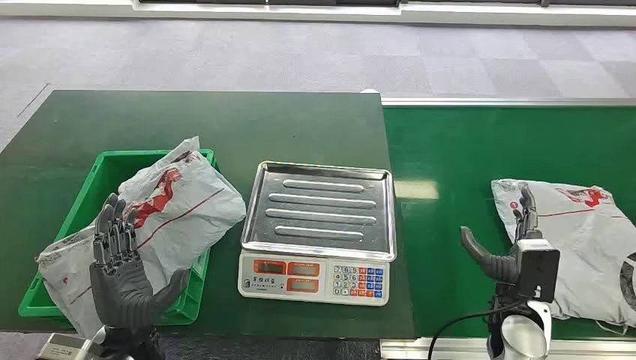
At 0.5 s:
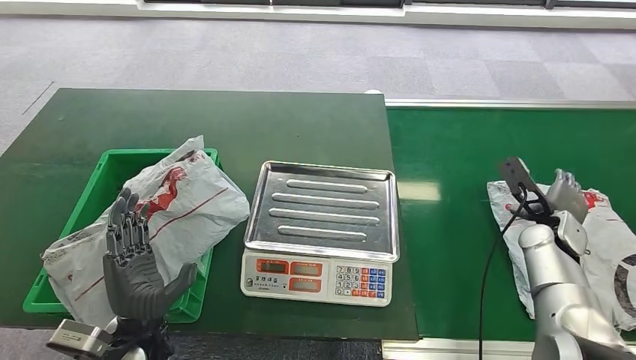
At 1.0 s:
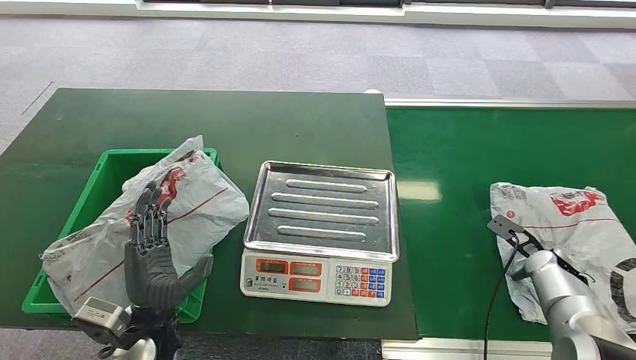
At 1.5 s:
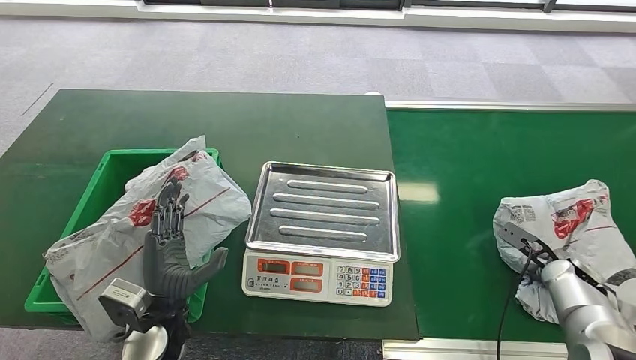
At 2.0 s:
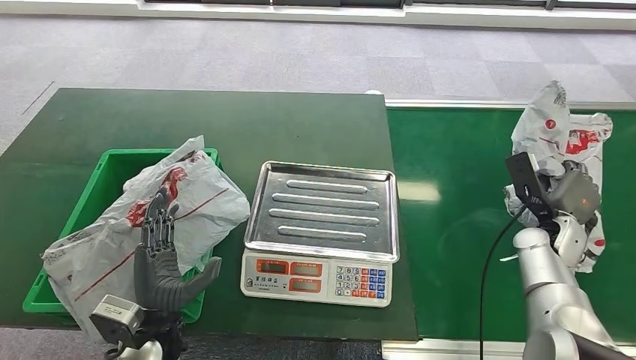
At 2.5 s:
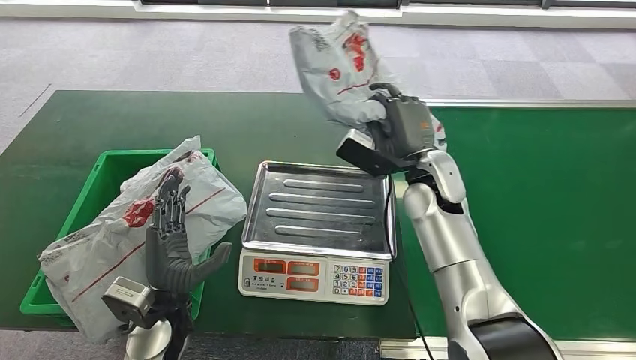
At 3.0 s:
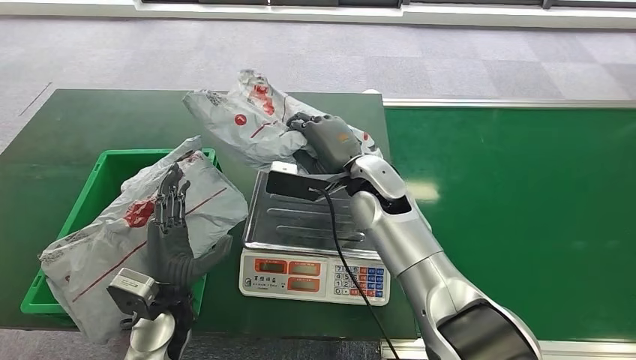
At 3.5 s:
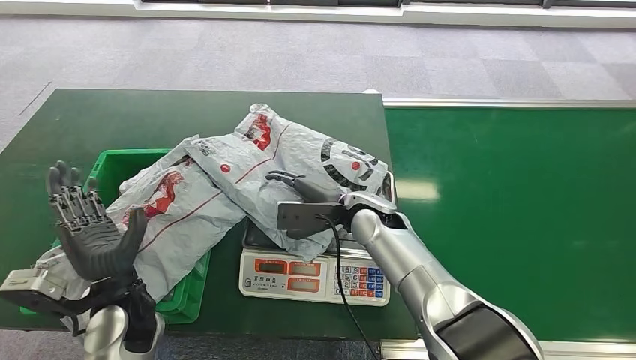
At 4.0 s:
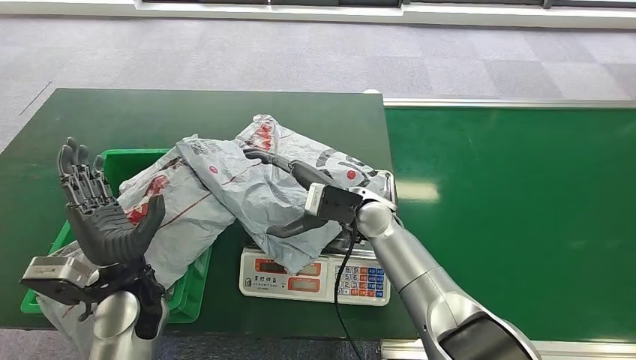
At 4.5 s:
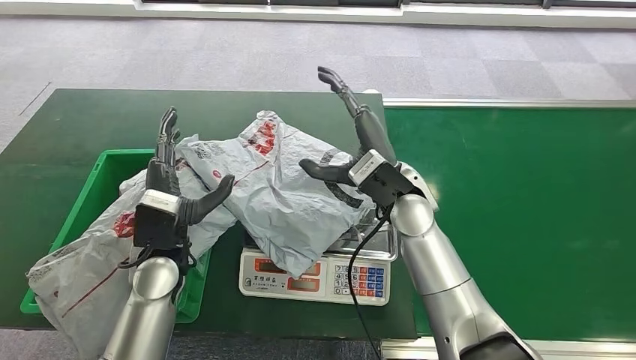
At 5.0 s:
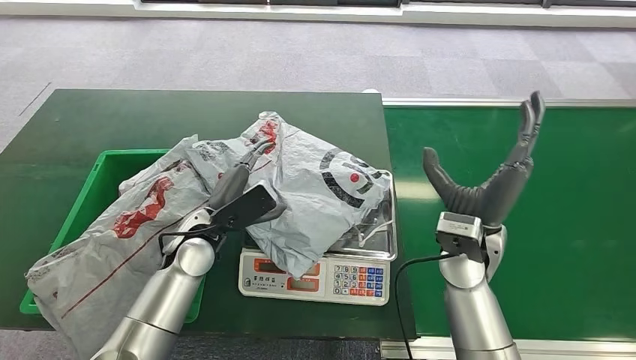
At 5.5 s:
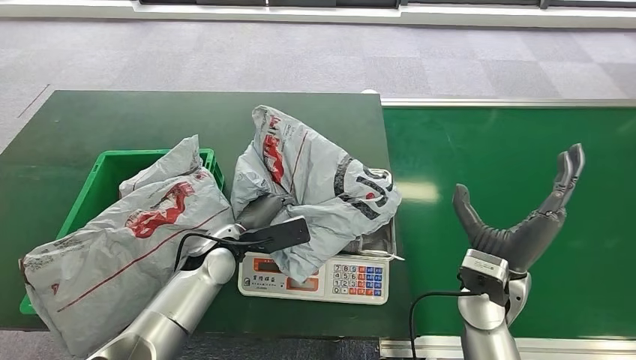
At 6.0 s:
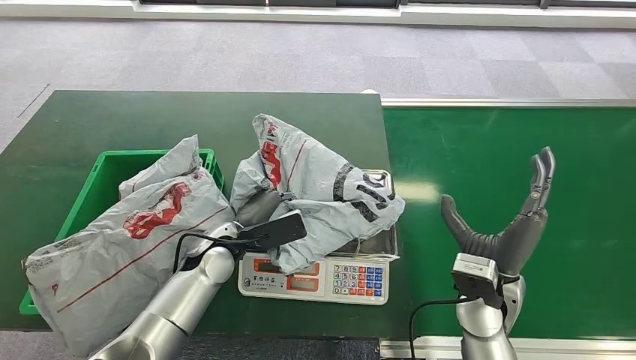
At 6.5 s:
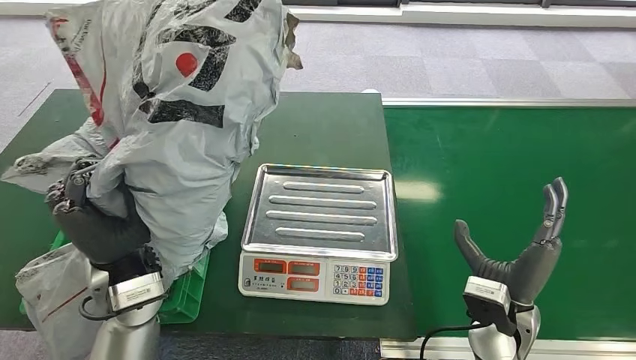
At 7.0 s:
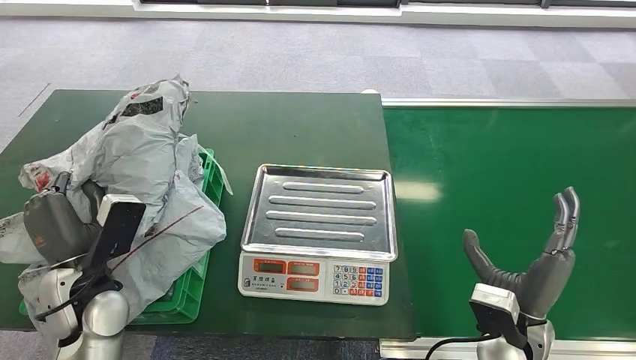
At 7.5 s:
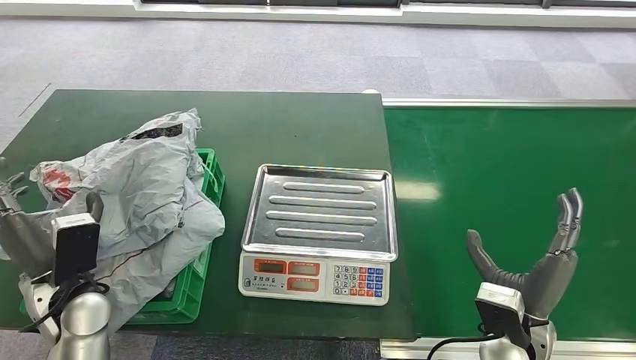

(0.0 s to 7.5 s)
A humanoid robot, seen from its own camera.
Step, 0.0 s - 2.0 s: Pick up the package from the conveyor belt.
Step, 2.5 s - 4.0 s: Place the package onto the inbound machine.
Step, 4.5 s - 6.5 s: Pick up the package from the inbound machine.
Step, 7.0 s - 7.5 s: Place the package into the parcel locker.
